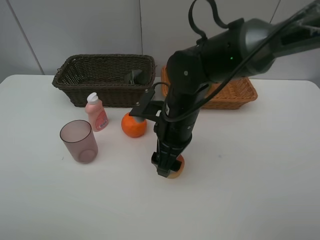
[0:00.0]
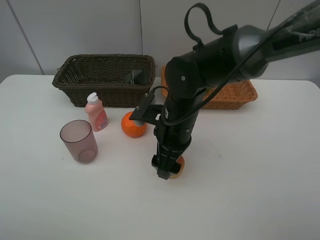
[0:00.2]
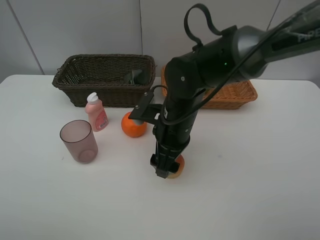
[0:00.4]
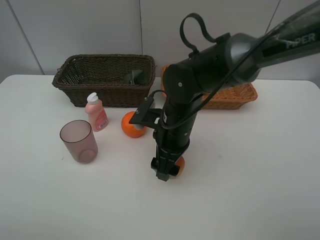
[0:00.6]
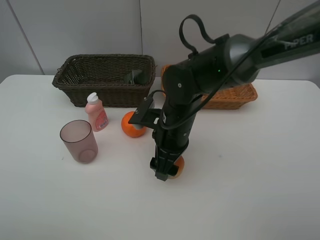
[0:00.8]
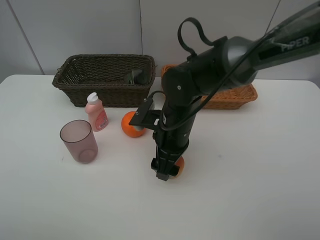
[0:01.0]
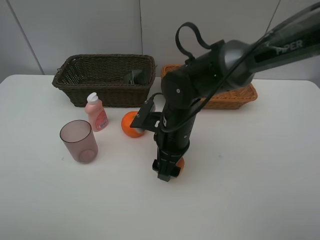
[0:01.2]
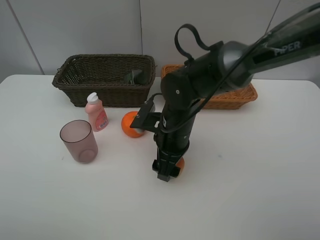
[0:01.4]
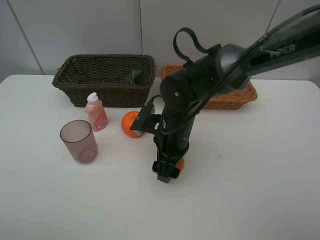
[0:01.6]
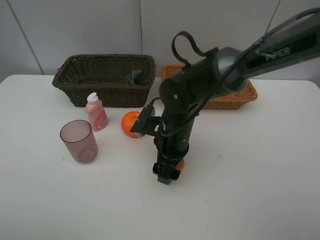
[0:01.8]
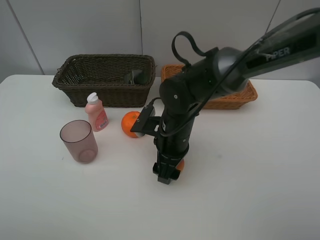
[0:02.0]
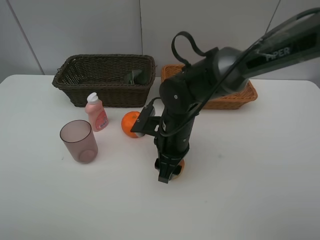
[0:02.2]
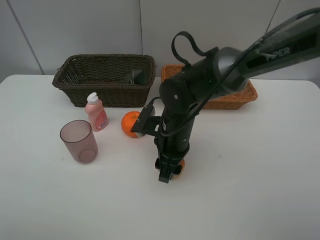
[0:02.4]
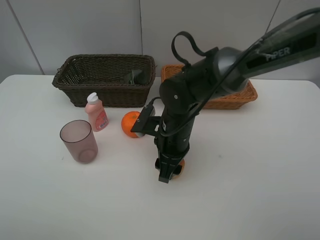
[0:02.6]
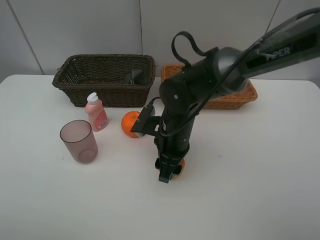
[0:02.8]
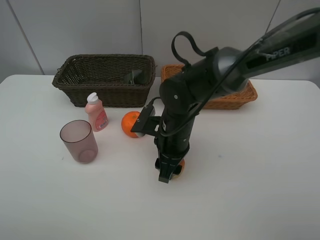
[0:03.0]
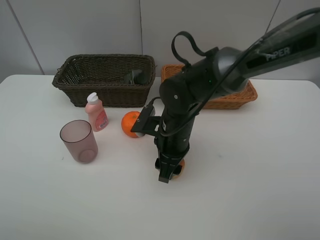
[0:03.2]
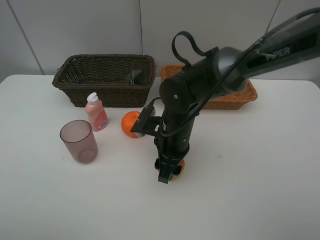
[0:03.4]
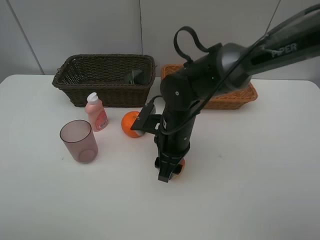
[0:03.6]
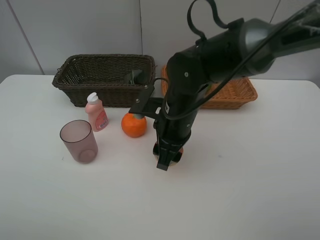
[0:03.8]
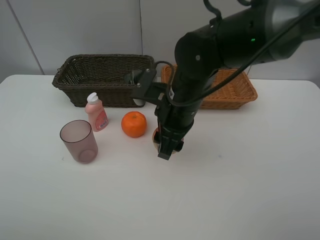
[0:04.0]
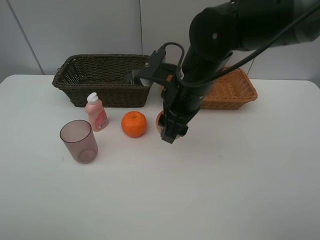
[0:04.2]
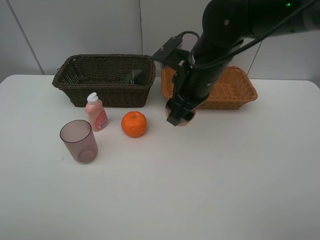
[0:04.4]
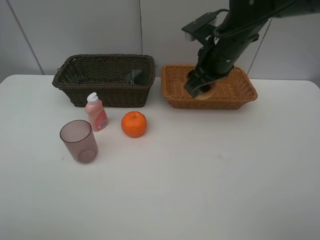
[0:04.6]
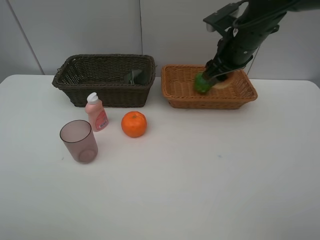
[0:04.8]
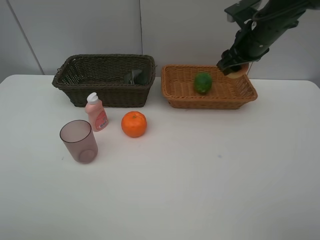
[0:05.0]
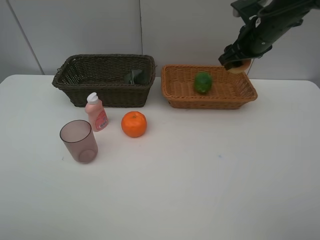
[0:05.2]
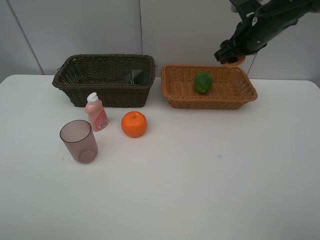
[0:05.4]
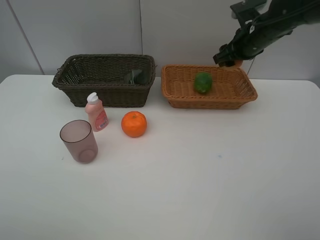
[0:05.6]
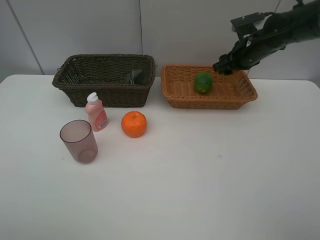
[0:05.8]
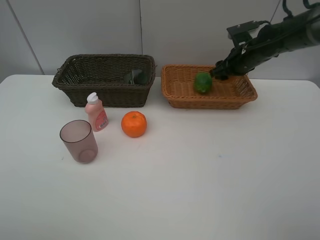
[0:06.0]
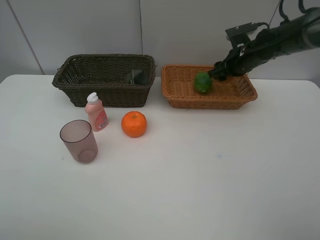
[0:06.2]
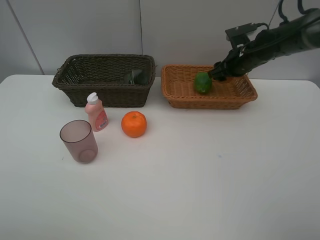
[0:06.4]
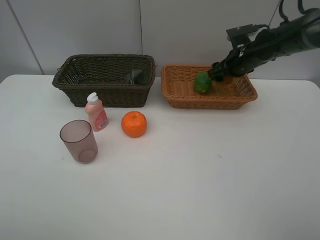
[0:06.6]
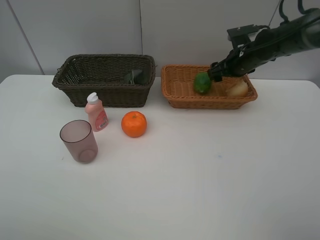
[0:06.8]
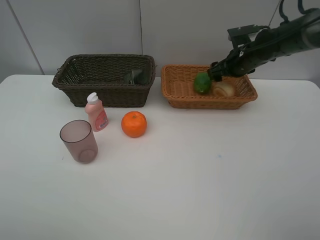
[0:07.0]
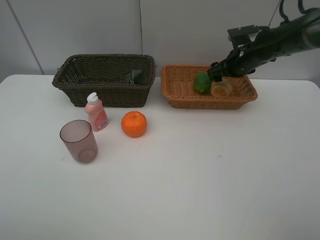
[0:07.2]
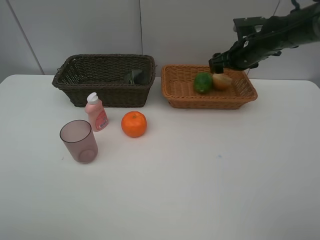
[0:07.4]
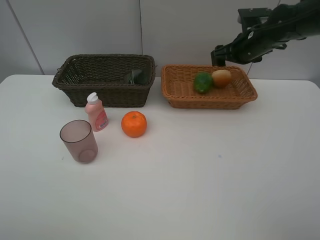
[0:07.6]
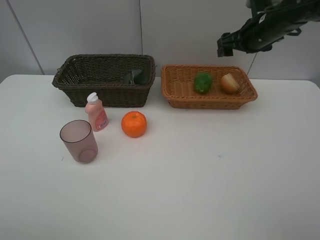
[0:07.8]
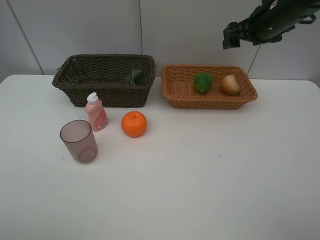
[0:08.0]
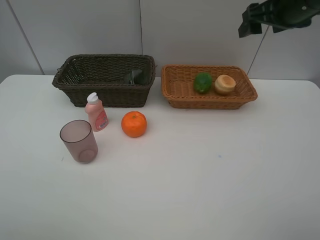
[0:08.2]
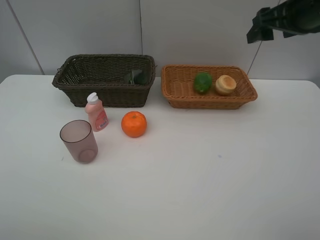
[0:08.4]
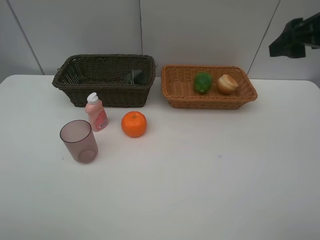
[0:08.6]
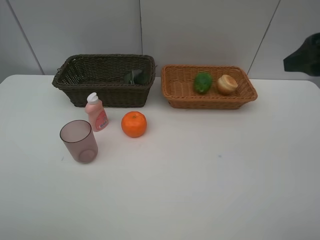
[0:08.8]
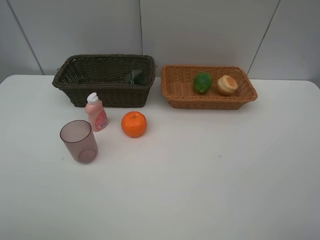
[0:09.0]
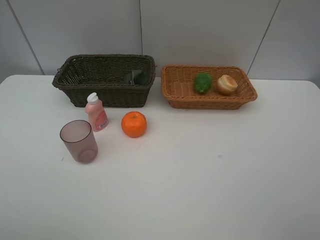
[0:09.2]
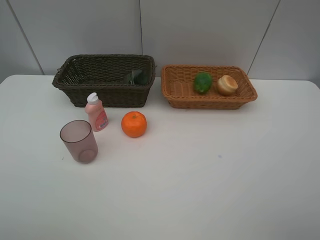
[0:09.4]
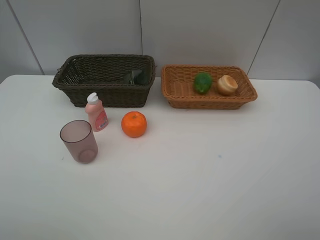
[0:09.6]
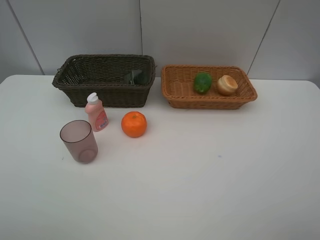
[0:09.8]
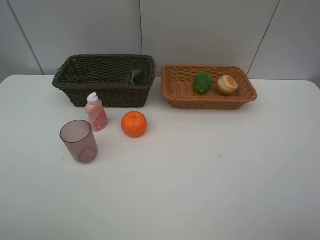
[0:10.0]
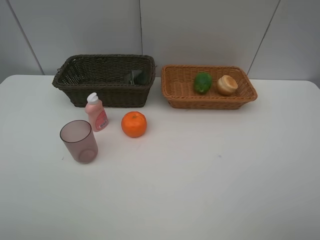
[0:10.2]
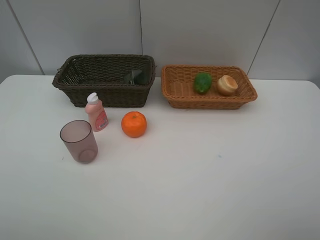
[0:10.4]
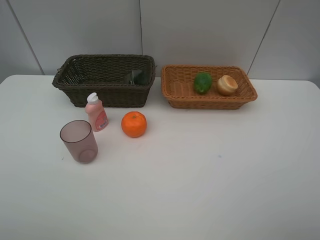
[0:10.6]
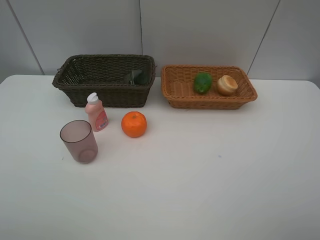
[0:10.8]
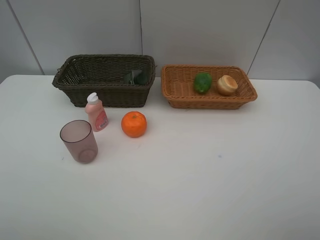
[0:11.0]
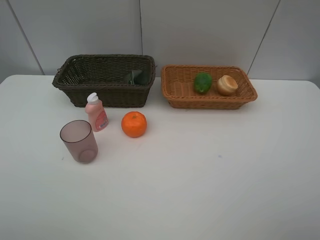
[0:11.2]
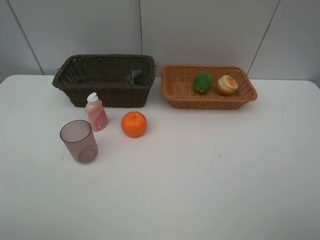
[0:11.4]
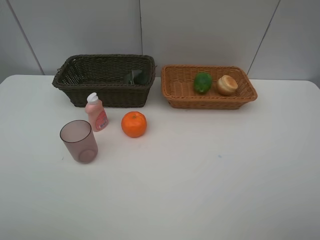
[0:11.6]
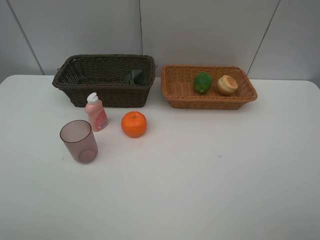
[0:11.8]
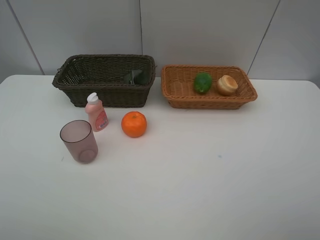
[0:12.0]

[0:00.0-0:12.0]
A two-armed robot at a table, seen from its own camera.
Task of the whole recording: place multiple objects separately in different baskets.
0:00.0 to 0:01.6: The grippers move only a little.
0:01.6 to 0:03.0: The right gripper closes up.
0:03.0 to 0:04.4: The right gripper goes approximately 10 cm upward.
0:04.4 to 0:06.0: The right gripper is displaced to the right and forward by some 20 cm.
0:06.0 to 0:07.6: The right gripper opens its fingers.
0:07.6 to 0:09.0: The right gripper travels backward by approximately 35 cm.

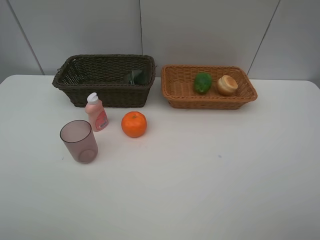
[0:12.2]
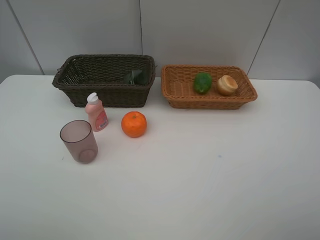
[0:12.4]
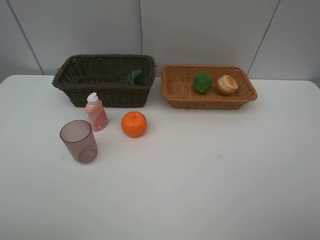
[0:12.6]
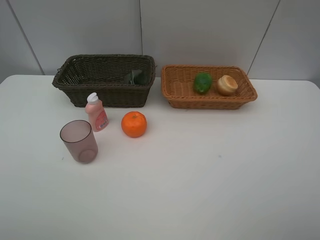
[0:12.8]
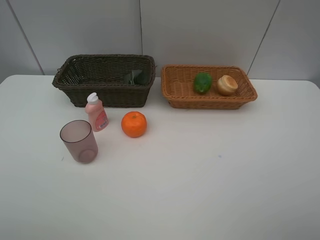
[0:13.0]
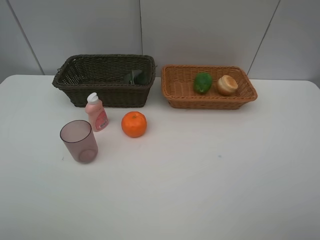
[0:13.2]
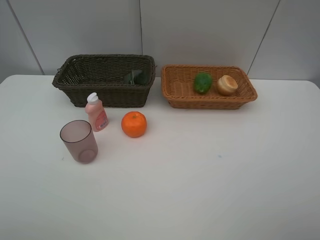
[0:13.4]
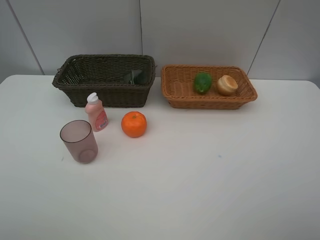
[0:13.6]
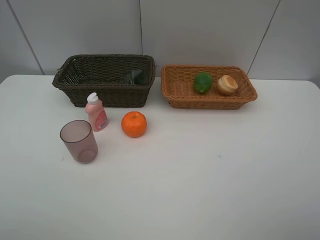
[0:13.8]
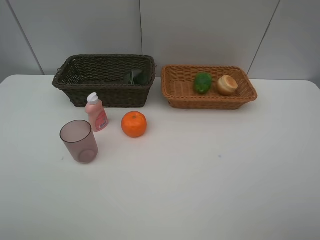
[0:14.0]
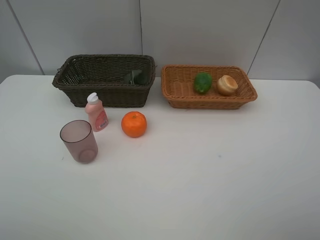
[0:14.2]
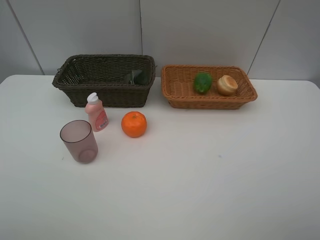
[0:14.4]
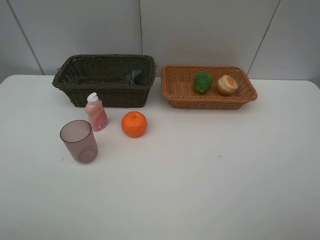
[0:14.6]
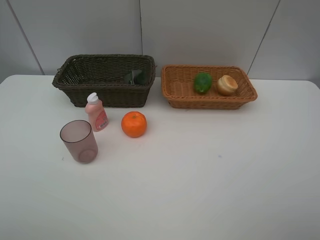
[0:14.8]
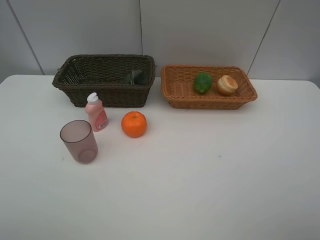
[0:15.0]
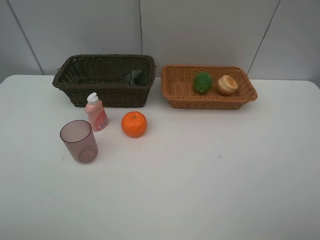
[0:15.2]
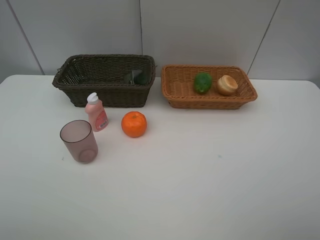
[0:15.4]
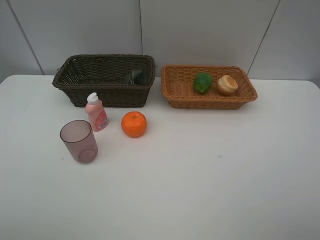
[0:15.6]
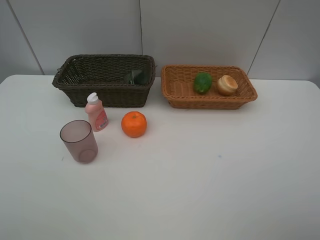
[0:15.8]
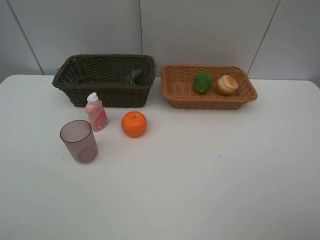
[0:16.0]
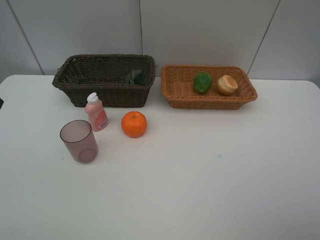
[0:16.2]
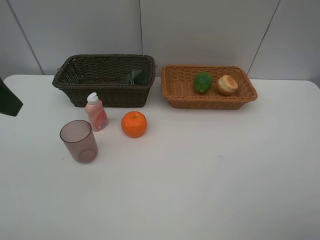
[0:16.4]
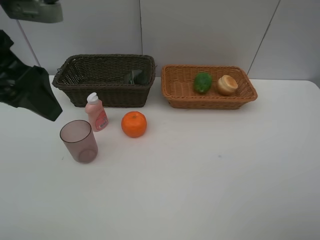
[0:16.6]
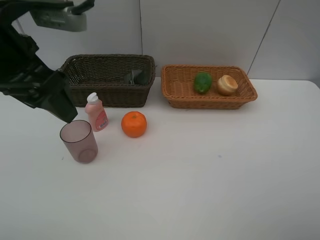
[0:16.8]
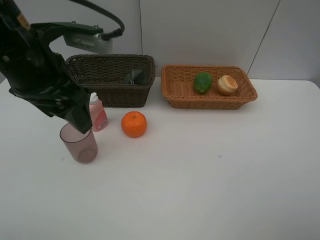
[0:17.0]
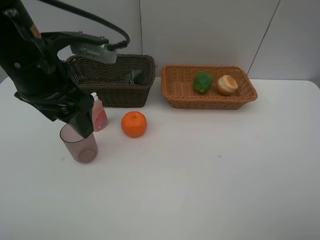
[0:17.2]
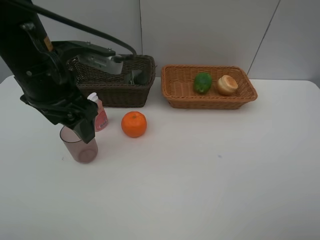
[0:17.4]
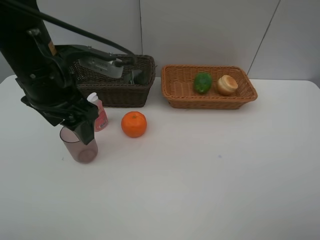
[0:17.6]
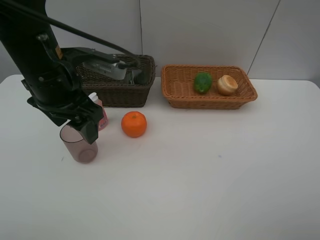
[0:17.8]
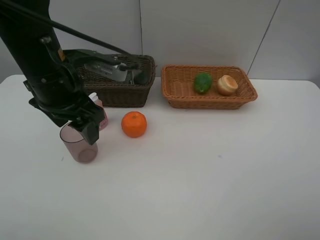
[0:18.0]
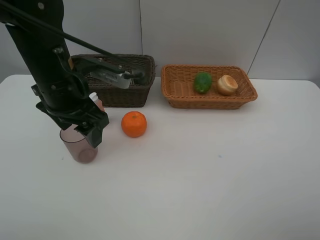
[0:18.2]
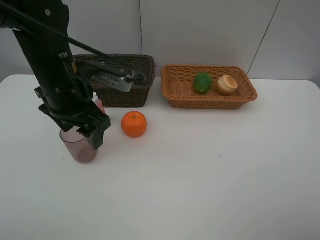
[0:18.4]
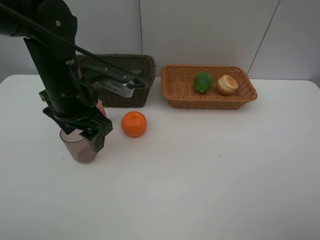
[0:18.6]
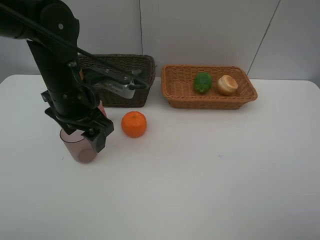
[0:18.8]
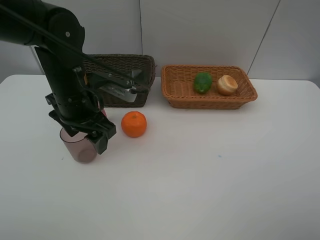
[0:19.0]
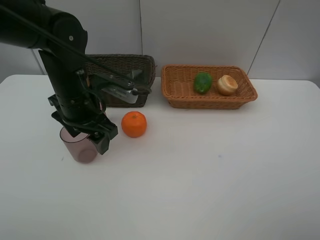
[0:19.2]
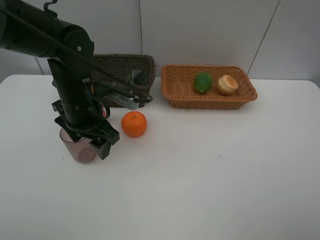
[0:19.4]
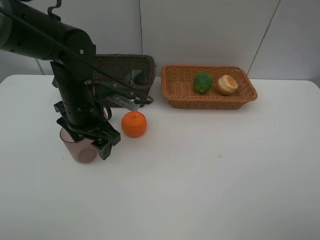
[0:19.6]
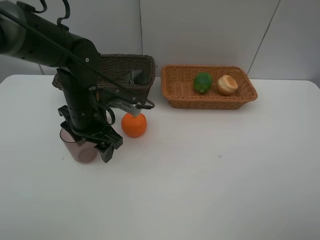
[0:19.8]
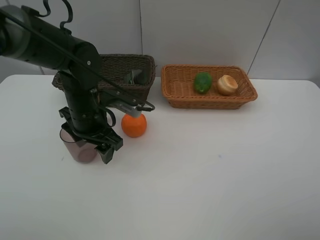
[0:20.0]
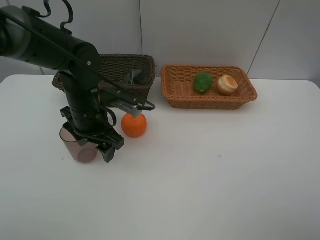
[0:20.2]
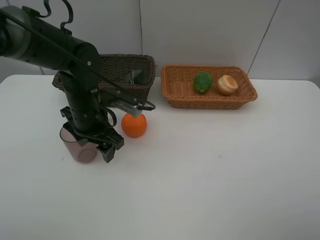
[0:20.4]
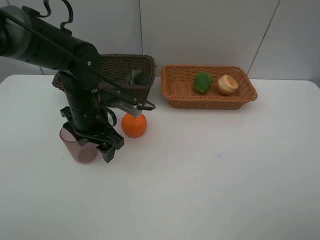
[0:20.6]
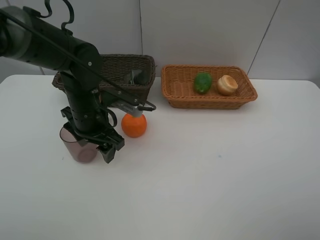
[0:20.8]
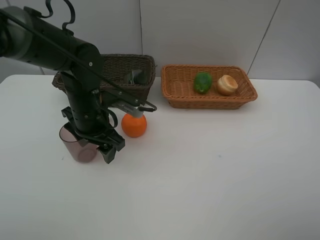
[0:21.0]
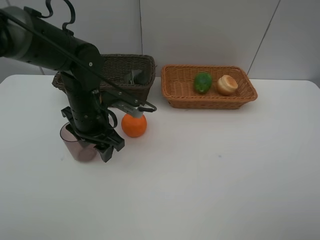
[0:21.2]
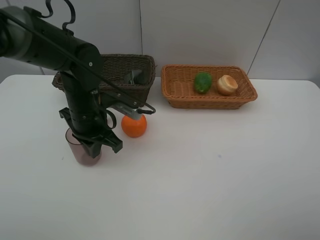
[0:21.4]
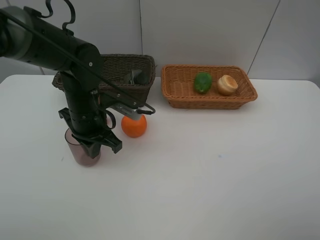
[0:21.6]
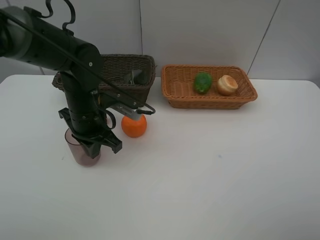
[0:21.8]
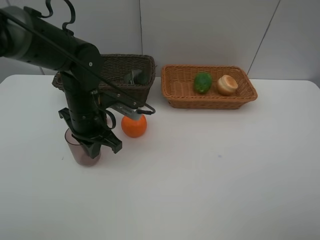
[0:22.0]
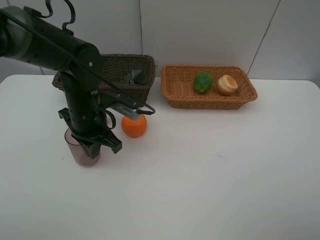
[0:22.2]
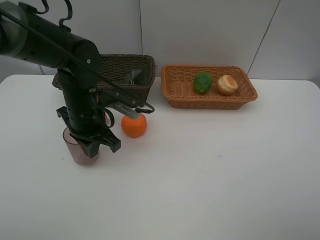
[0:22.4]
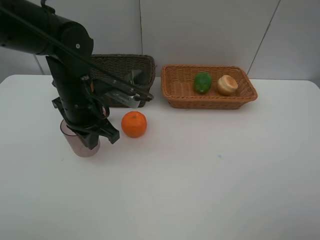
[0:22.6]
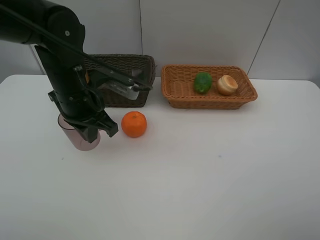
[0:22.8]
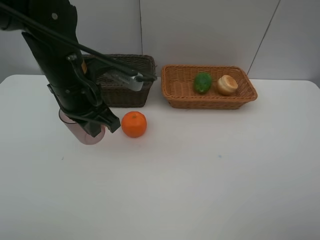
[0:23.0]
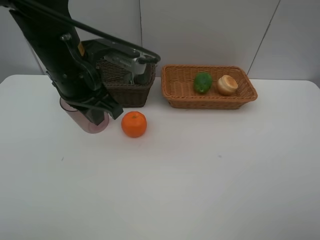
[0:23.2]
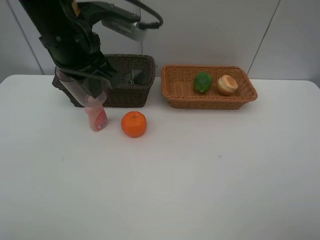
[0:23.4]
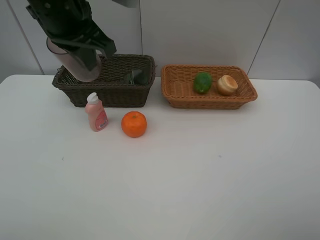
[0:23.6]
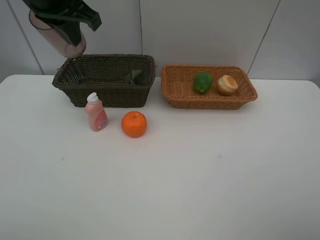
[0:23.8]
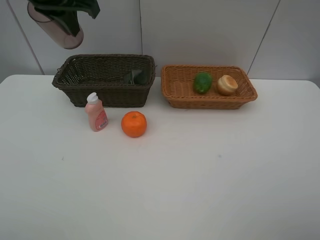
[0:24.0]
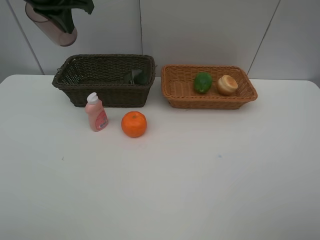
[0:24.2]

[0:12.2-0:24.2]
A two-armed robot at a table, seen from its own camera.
Task of the whole recording: place multiple objects separately in different baskets.
0:13.8 to 0:15.2: Neither gripper changes place.
0:15.2 to 0:16.6: The left gripper moves forward and to the right, roughly 25 cm.
0:16.6 to 0:18.2: The left gripper moves downward, to the right and forward, roughly 15 cm.
0:18.2 to 0:19.8: The left gripper moves downward, roughly 10 cm.
0:19.8 to 0:21.2: Neither gripper changes place.
0:21.2 to 0:22.6: The left gripper closes up.
0:22.6 to 0:24.2: The left gripper goes approximately 20 cm upward, forward and to the left.
